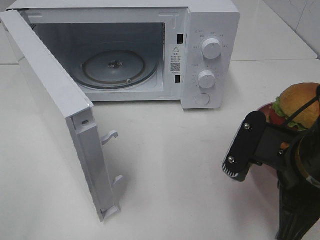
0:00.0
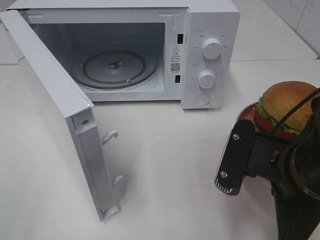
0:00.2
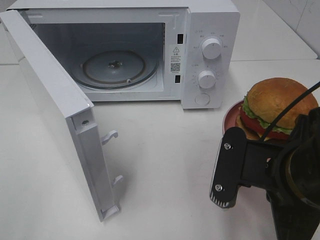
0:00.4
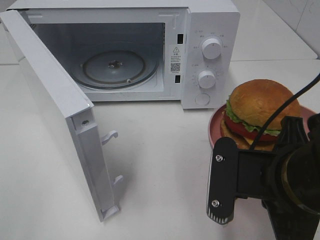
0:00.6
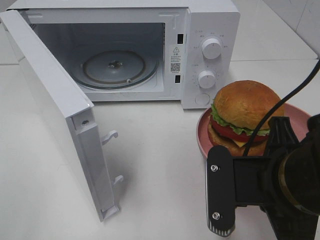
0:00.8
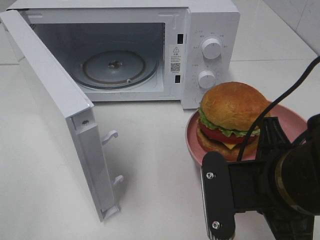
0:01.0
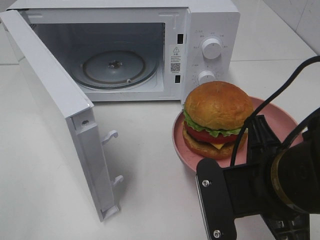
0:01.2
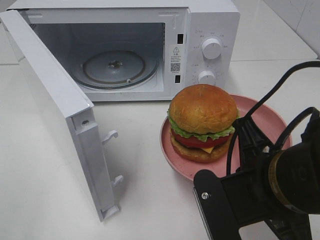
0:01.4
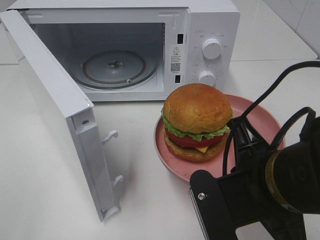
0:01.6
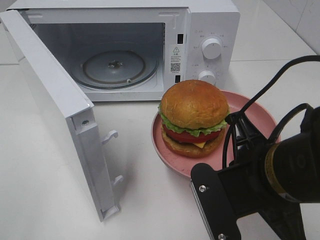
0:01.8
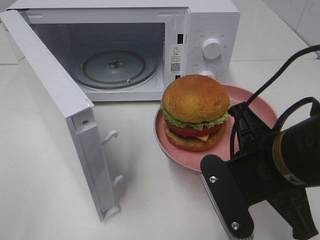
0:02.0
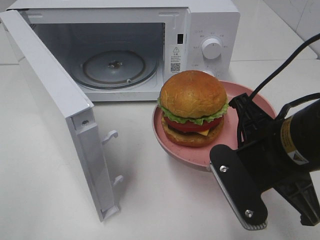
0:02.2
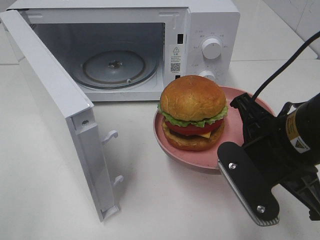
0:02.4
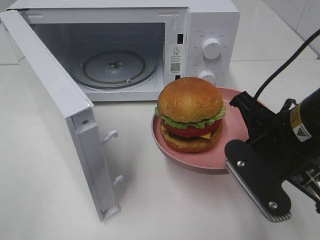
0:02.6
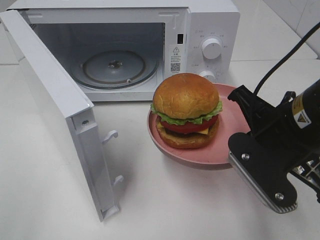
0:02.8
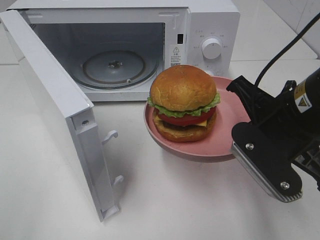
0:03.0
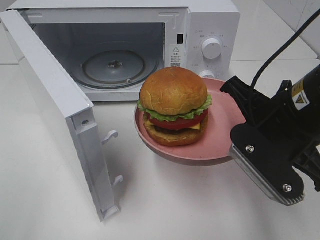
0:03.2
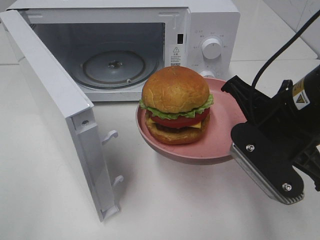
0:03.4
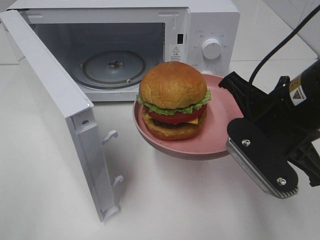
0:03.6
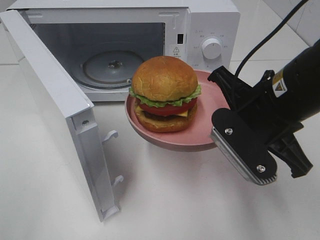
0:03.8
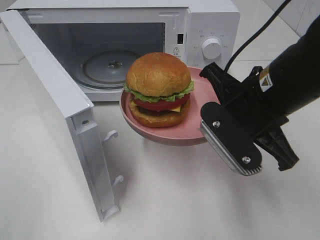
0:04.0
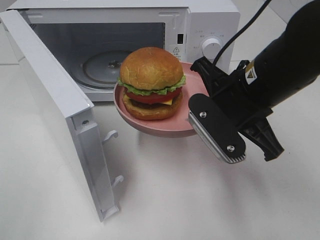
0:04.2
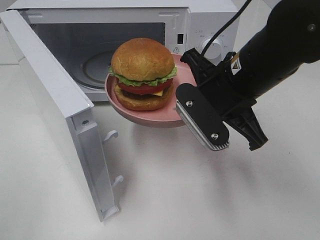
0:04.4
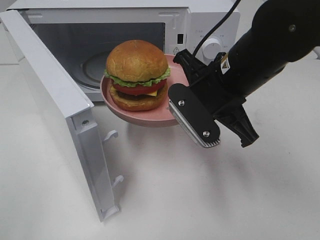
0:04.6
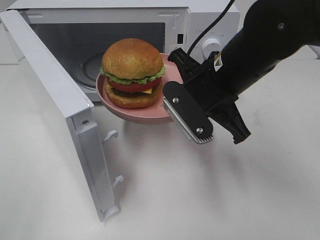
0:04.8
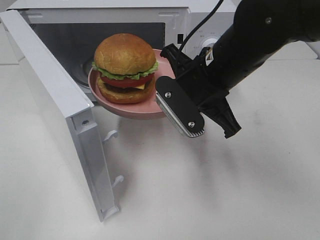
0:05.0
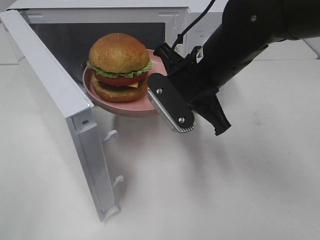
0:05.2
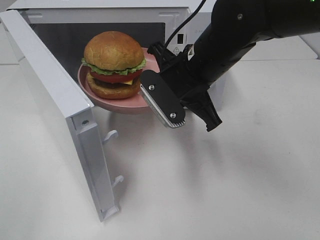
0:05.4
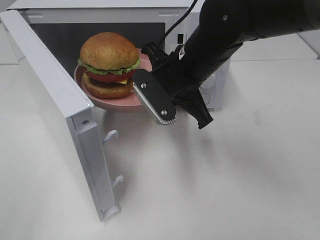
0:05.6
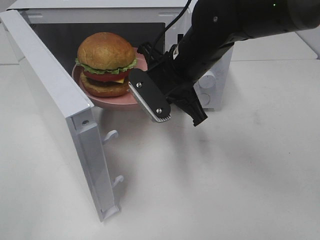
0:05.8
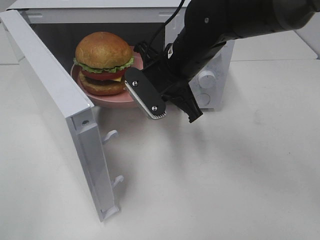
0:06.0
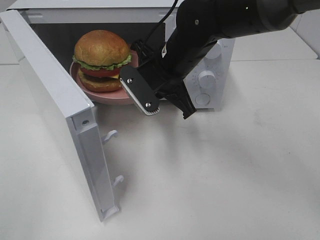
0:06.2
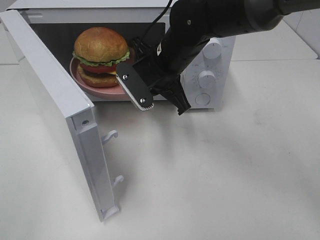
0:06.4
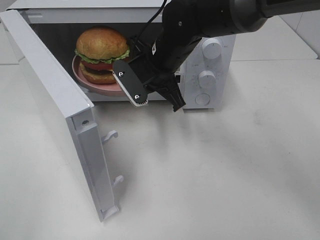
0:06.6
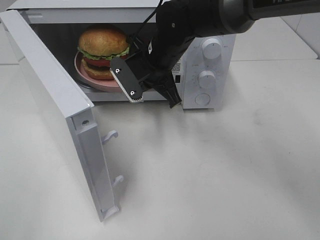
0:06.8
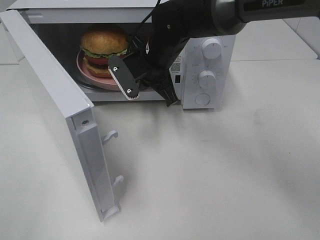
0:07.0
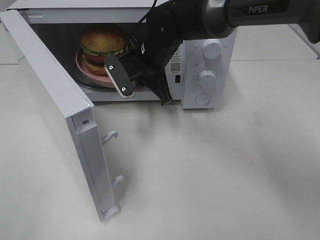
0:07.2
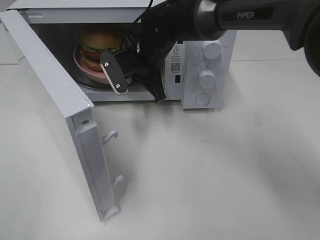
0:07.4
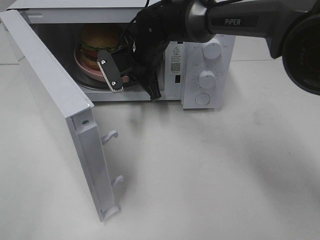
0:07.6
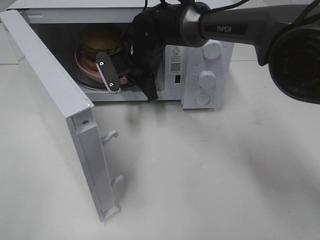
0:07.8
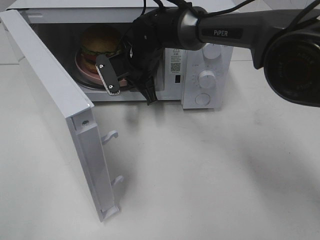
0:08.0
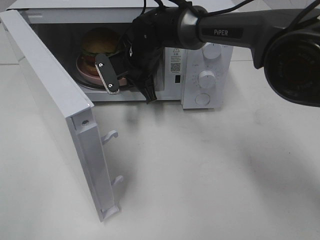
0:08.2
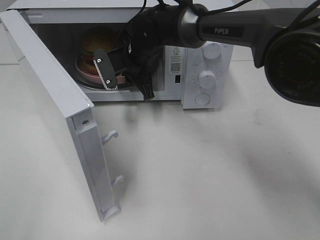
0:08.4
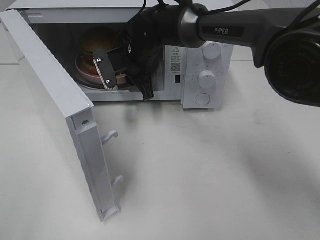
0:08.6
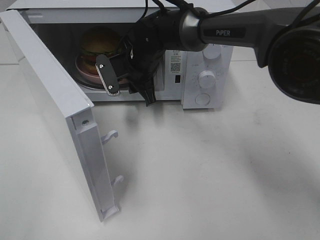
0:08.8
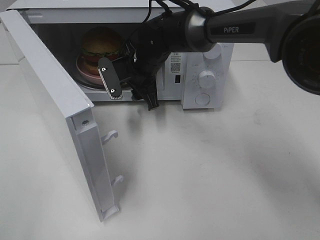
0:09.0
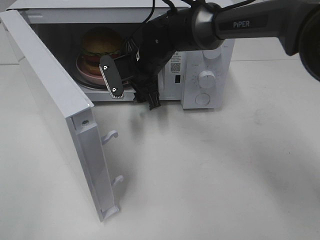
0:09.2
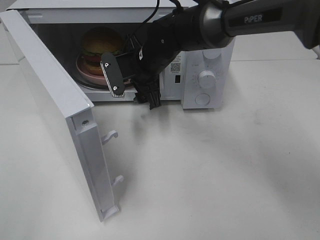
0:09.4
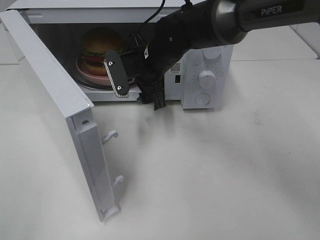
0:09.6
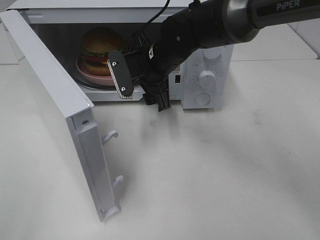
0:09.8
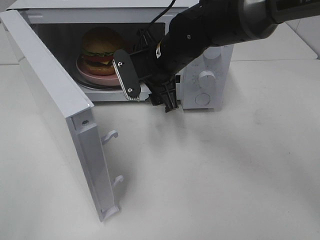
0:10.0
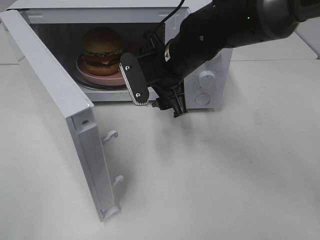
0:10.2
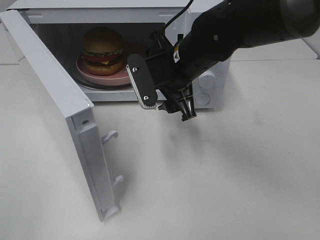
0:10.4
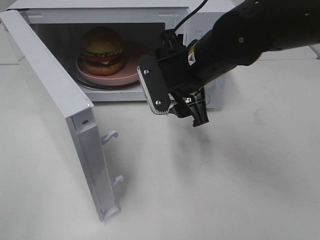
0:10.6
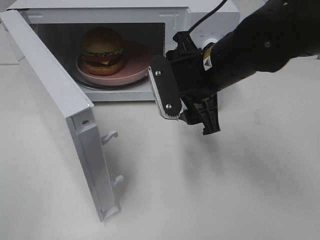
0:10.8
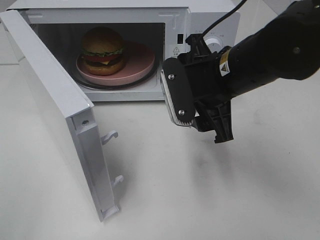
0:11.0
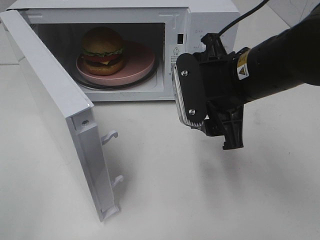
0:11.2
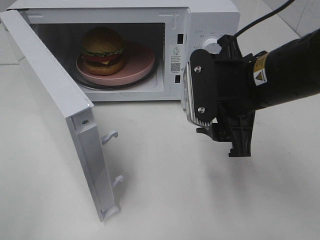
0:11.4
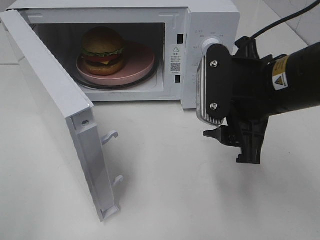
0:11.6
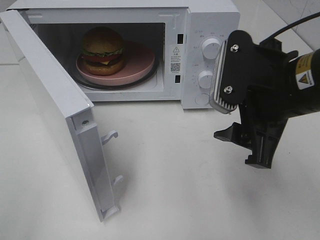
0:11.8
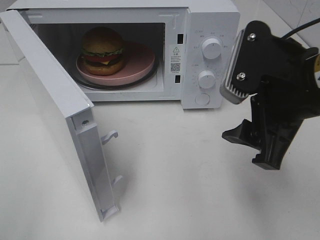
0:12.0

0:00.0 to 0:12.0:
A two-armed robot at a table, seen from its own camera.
Task of the whole recording: Heat the burger.
Step, 0:00.0 to 0:09.2: Right hand: place the plate in the microwave.
0:01.6 to 0:03.0: The right gripper goes roughly 5 cm forward.
0:03.0 to 0:04.4: The right gripper goes about 5 cm forward.
0:04.4 to 0:06.0: The right gripper heads forward and to the left, covering roughly 10 cm.
0:06.0 to 0:07.6: The right gripper travels forward and to the left by approximately 10 cm.
0:07.6 to 0:09.0: The right gripper opens its fingers.
0:09.0 to 0:10.4: The right gripper goes roughly 15 cm backward, to the right and upward.
0:10.4 to 0:12.0: The right gripper is displaced backward, to the right and upward by roughly 20 cm.

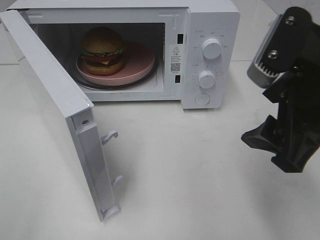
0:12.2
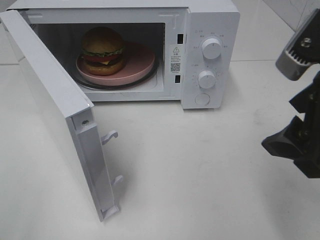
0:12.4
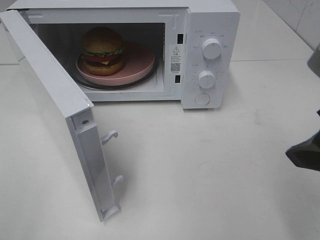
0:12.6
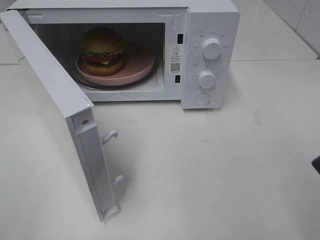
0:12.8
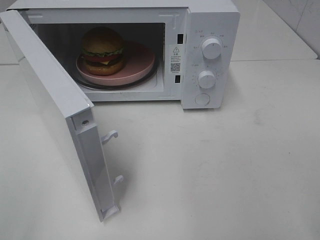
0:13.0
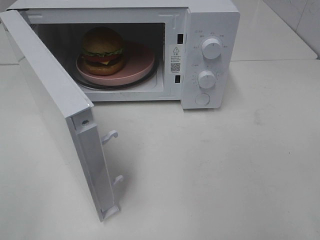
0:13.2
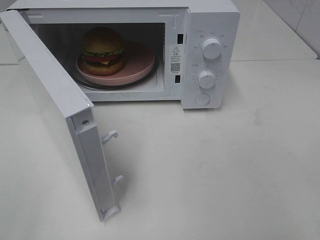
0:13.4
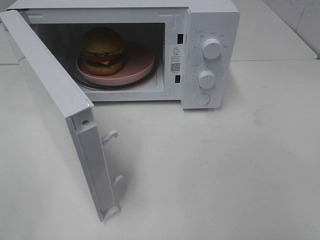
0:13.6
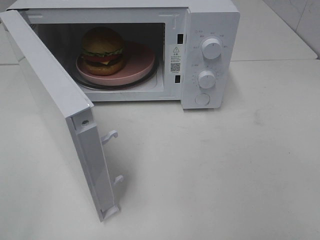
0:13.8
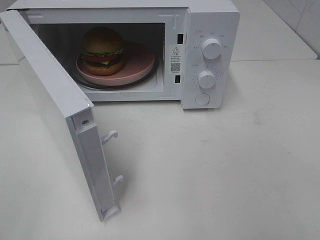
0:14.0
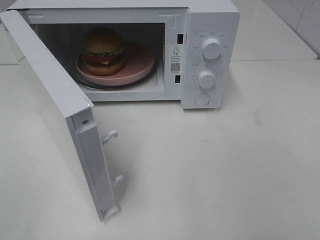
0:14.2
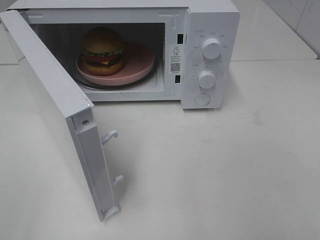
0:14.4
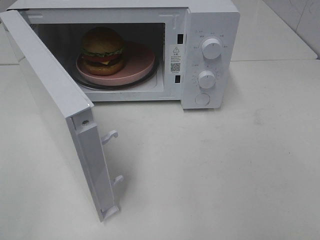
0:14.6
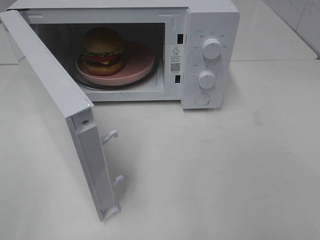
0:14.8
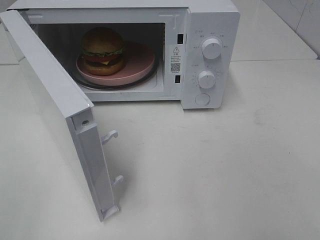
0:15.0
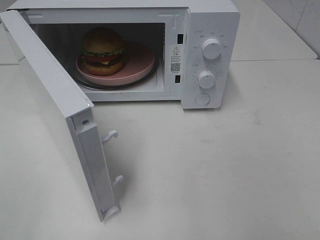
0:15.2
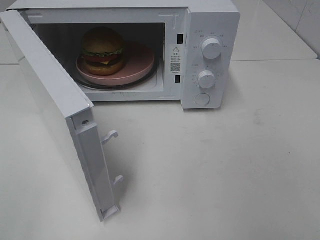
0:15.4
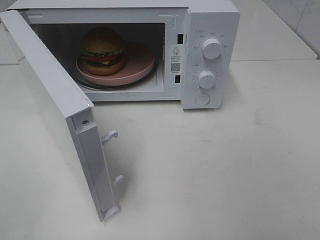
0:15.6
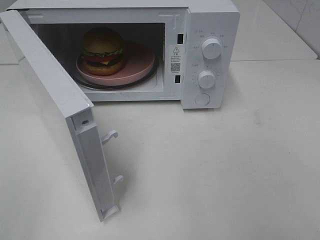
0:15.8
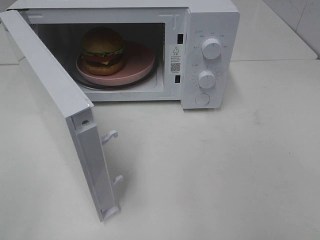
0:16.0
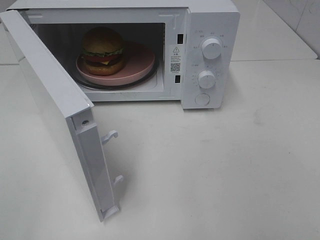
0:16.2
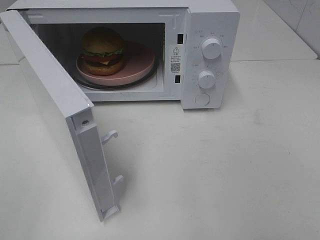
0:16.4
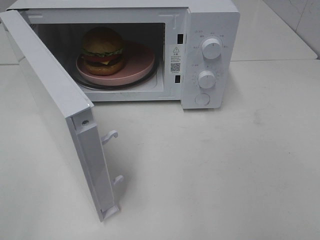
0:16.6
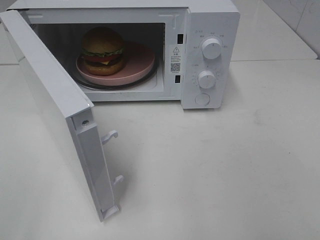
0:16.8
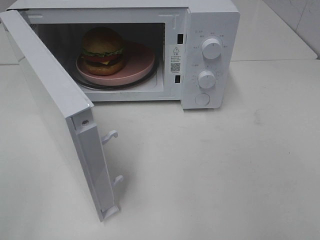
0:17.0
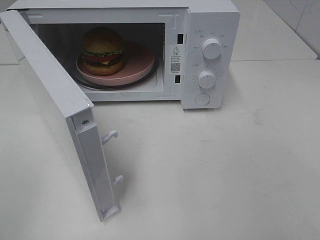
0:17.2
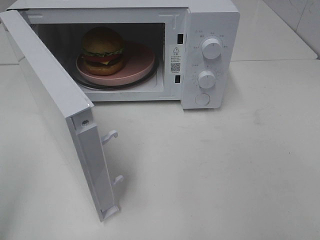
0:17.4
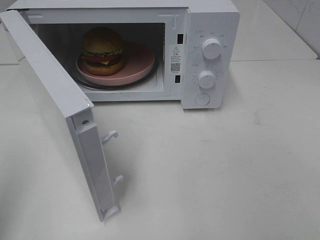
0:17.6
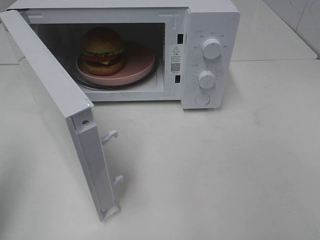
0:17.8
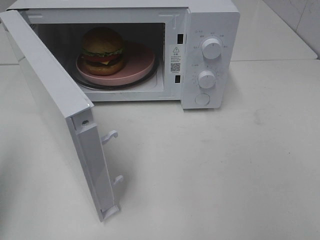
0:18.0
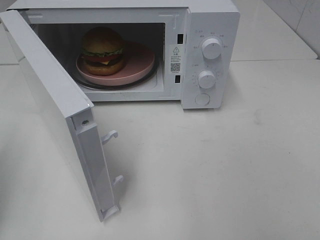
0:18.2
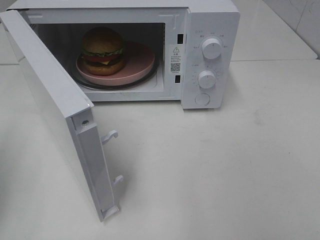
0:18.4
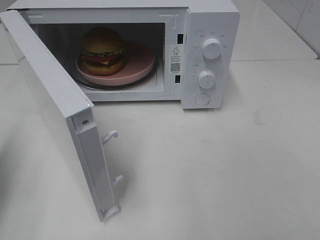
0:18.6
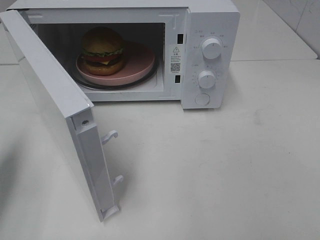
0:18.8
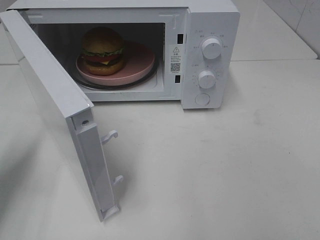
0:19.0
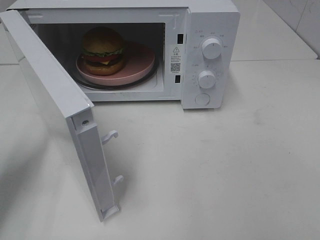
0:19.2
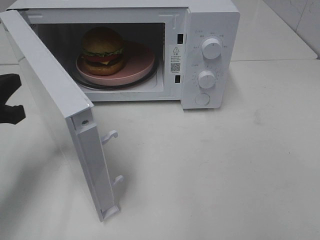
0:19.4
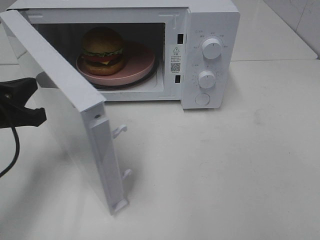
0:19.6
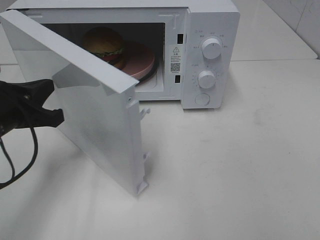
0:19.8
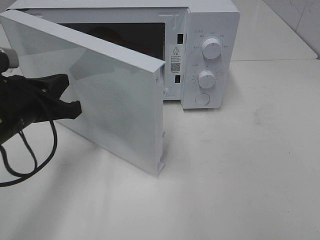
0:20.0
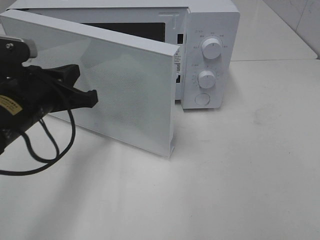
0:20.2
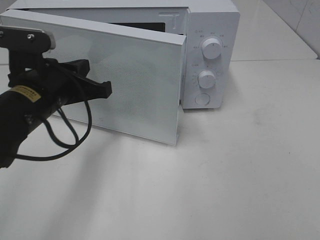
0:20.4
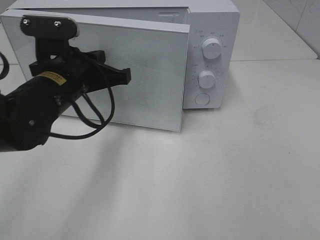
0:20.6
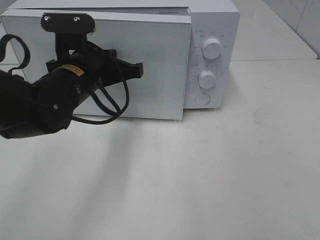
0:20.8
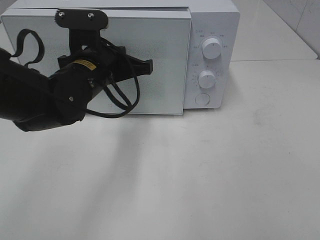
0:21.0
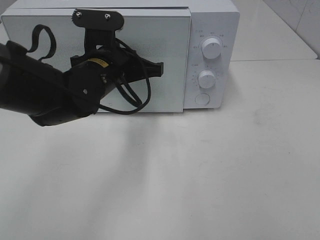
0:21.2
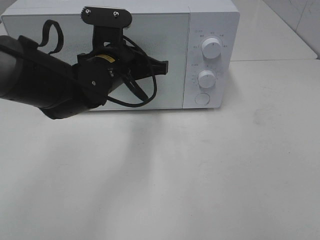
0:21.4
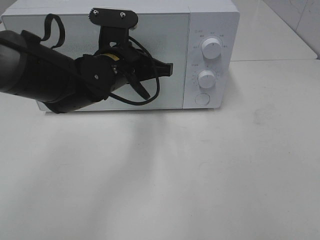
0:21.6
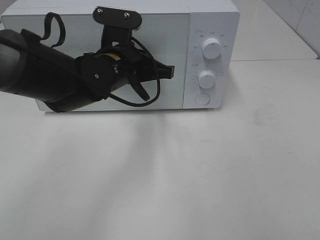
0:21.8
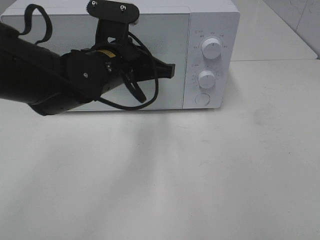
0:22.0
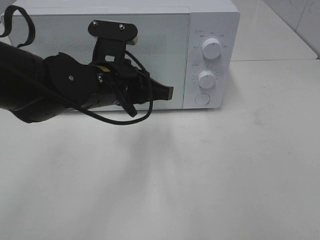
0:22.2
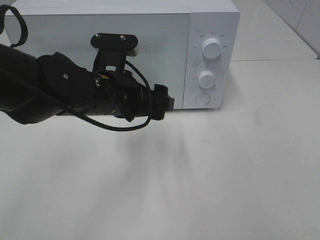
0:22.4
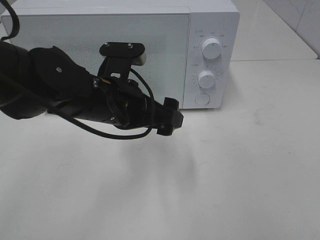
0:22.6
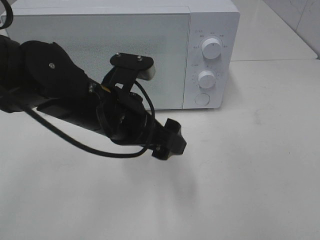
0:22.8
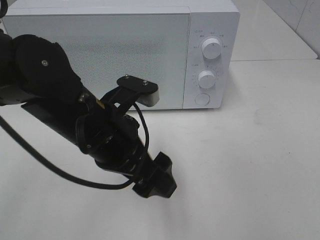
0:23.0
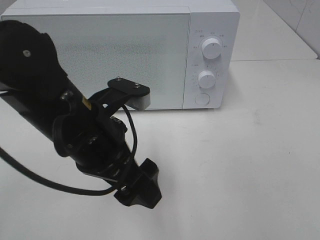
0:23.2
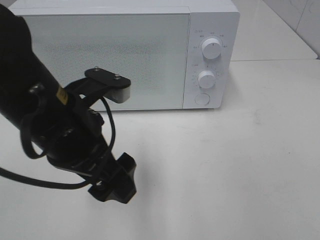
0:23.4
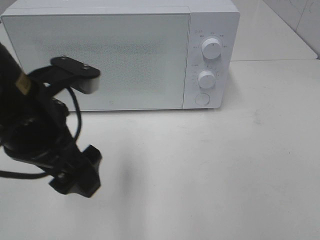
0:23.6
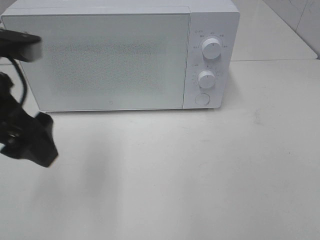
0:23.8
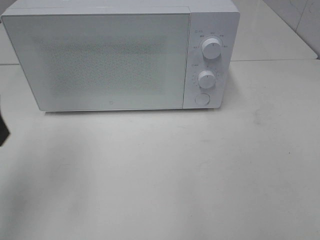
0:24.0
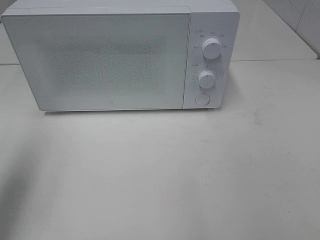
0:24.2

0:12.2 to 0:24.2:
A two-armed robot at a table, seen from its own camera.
Task of the whole recording: Heat the burger.
Step, 0:12.2 to 0:24.2: Left hand: close the microwave door.
0:12.2 to 0:13.8: The right gripper is displaced backward and to the right by about 15 cm.
0:15.2 to 0:16.6: Both grippers stay put.
0:16.6 to 0:18.2: The left gripper shifts roughly 15 cm forward, and closes up.
0:18.2 to 0:19.8: The left gripper travels to the right, downward and forward by about 15 cm.
0:19.8 to 0:21.2: The left gripper heads to the right and forward, covering about 15 cm.
0:21.2 to 0:22.6: The left gripper shifts about 5 cm backward, and opens.
0:22.6 to 0:24.2: The left gripper heads to the left and upward, covering some 30 cm.
